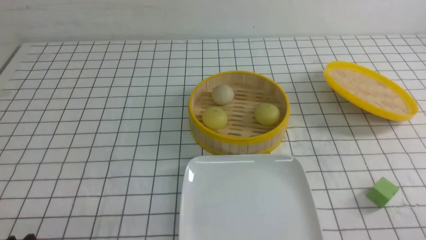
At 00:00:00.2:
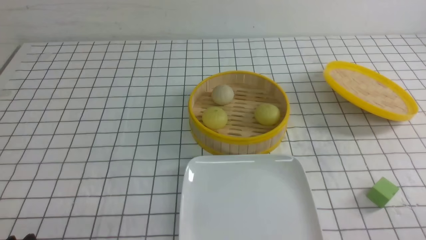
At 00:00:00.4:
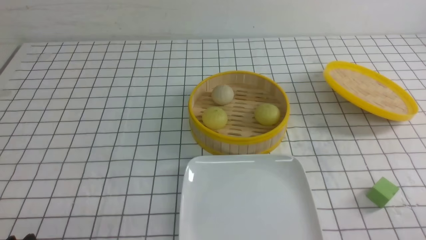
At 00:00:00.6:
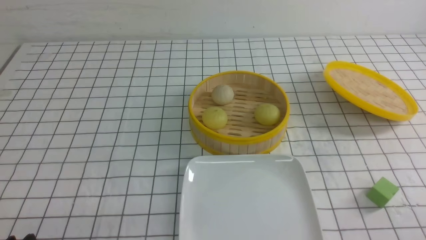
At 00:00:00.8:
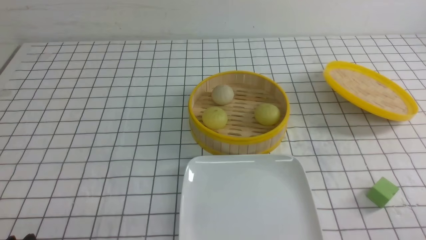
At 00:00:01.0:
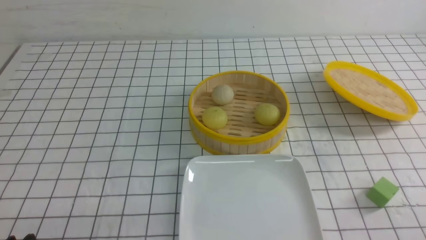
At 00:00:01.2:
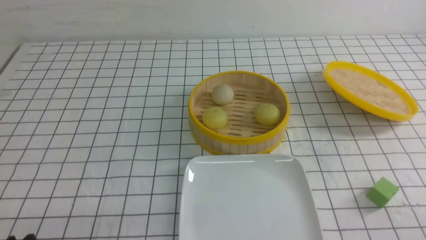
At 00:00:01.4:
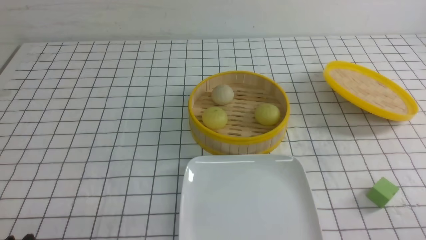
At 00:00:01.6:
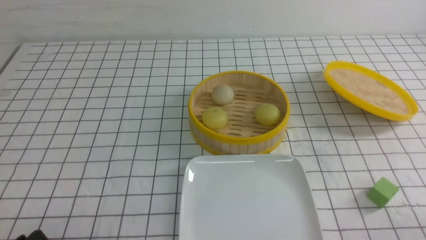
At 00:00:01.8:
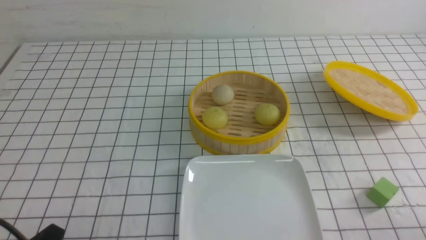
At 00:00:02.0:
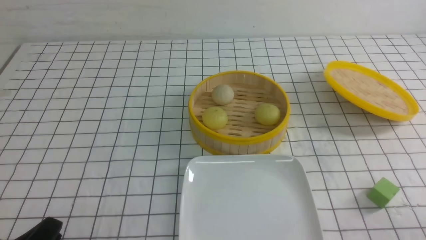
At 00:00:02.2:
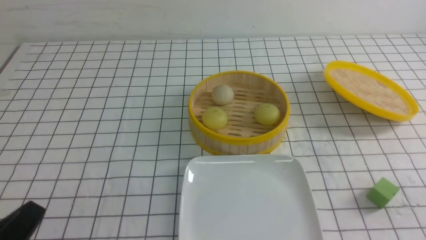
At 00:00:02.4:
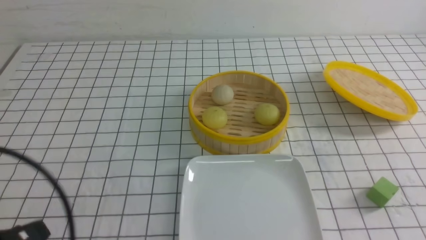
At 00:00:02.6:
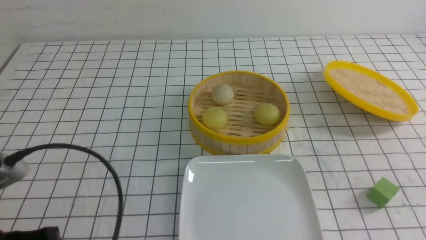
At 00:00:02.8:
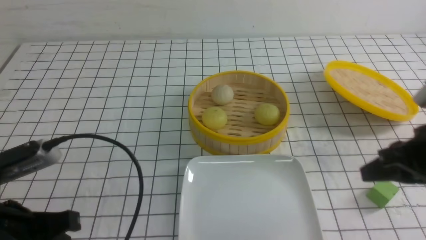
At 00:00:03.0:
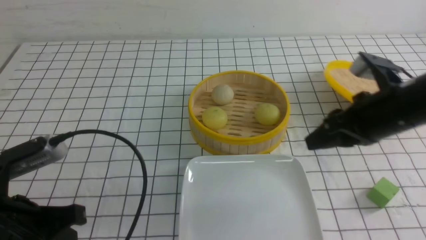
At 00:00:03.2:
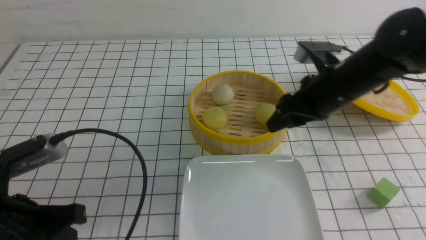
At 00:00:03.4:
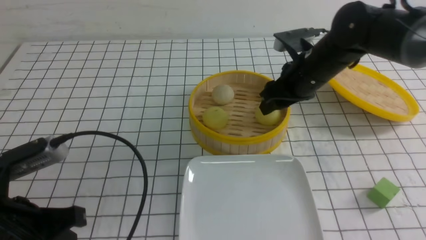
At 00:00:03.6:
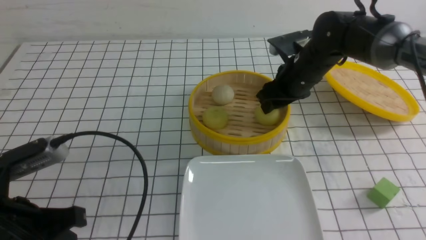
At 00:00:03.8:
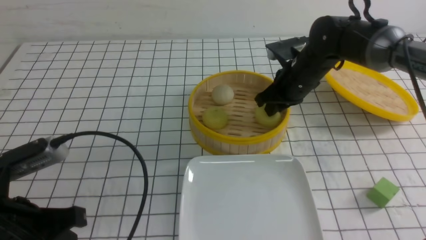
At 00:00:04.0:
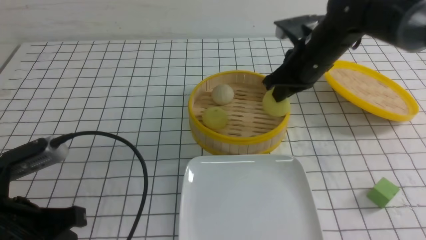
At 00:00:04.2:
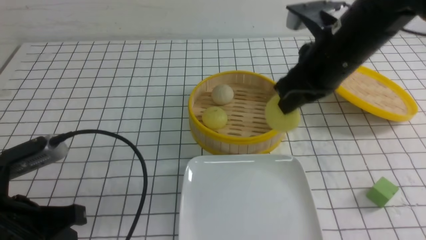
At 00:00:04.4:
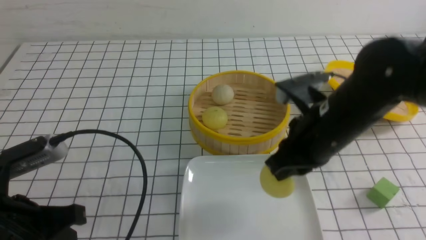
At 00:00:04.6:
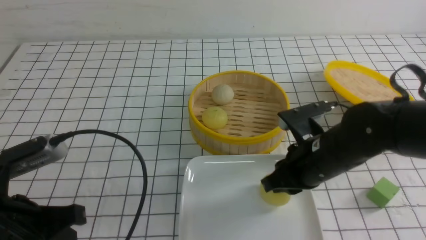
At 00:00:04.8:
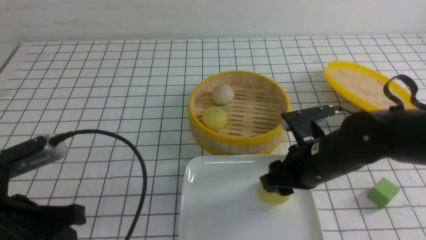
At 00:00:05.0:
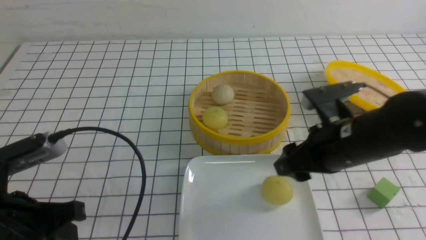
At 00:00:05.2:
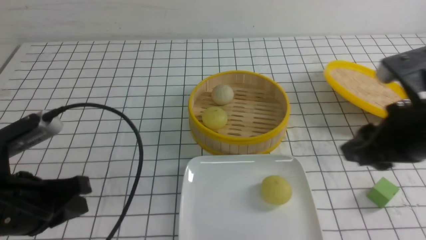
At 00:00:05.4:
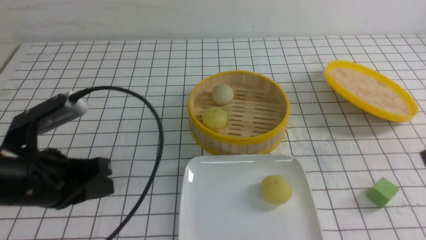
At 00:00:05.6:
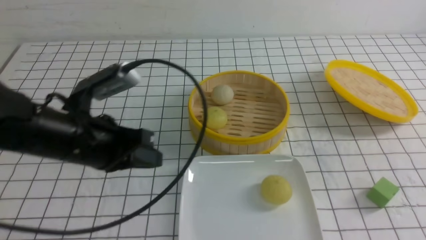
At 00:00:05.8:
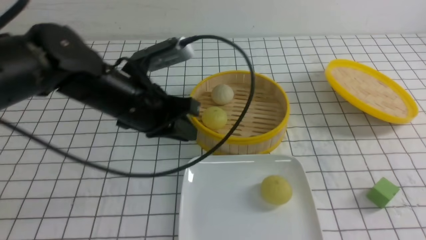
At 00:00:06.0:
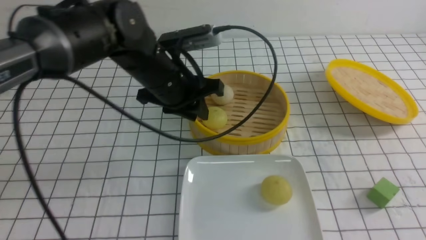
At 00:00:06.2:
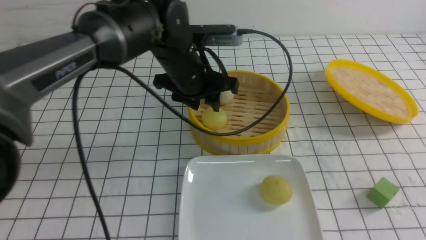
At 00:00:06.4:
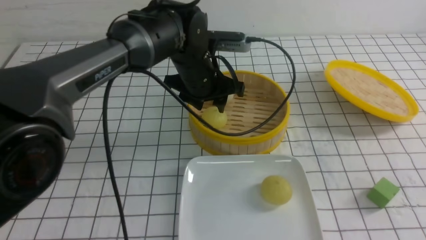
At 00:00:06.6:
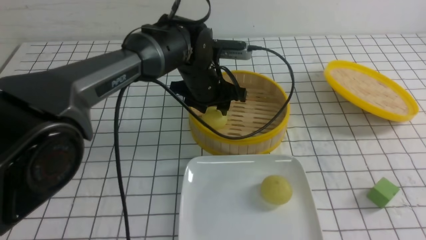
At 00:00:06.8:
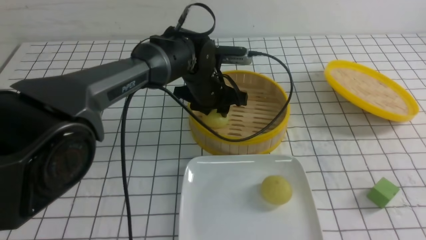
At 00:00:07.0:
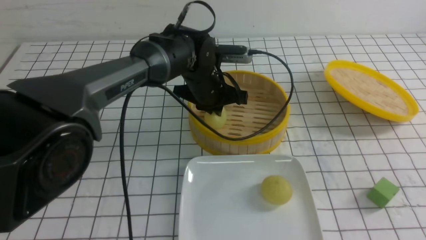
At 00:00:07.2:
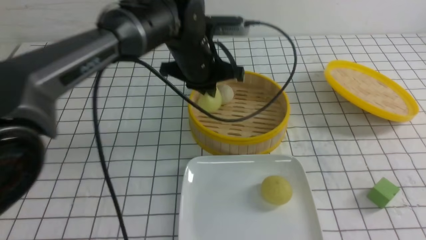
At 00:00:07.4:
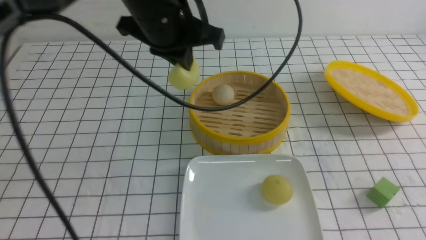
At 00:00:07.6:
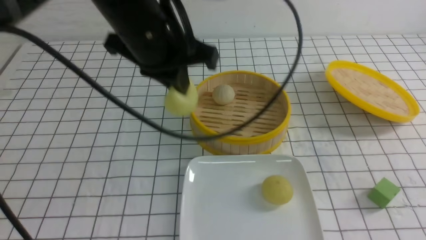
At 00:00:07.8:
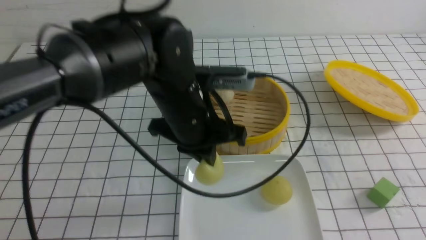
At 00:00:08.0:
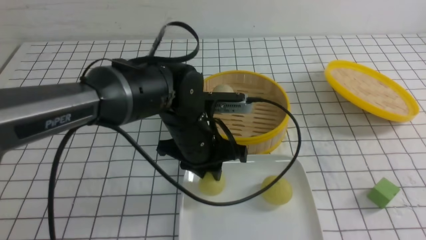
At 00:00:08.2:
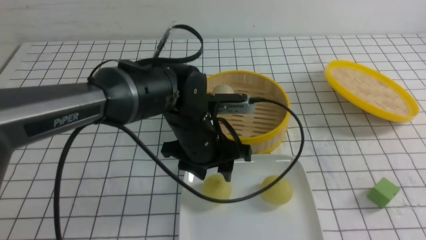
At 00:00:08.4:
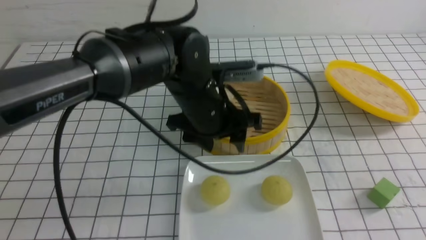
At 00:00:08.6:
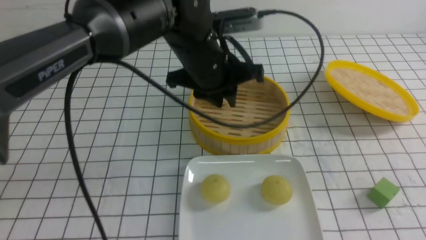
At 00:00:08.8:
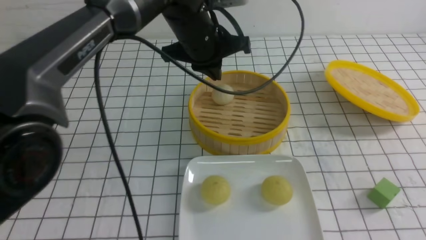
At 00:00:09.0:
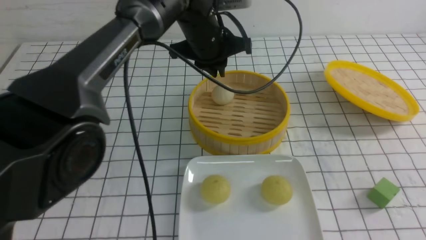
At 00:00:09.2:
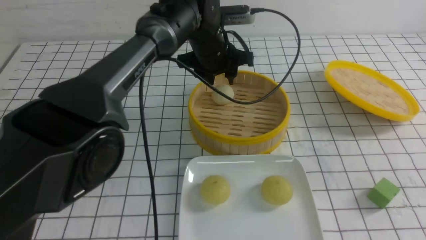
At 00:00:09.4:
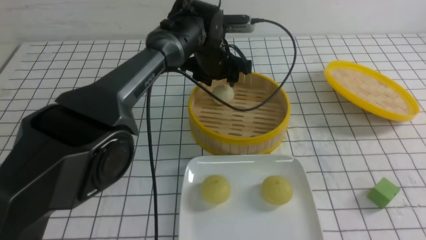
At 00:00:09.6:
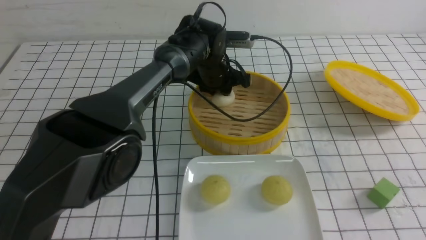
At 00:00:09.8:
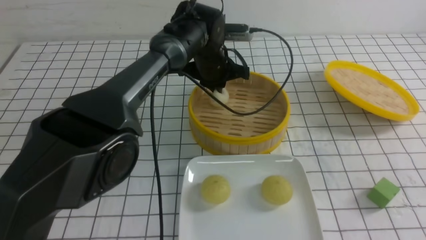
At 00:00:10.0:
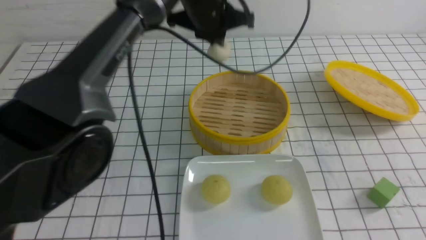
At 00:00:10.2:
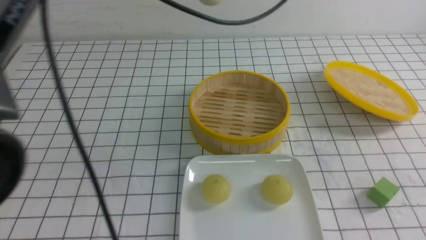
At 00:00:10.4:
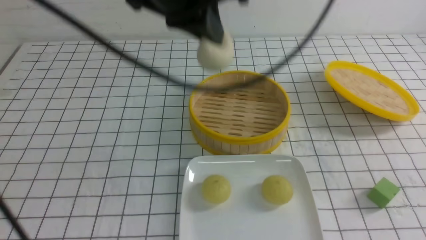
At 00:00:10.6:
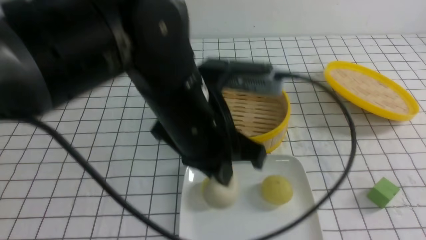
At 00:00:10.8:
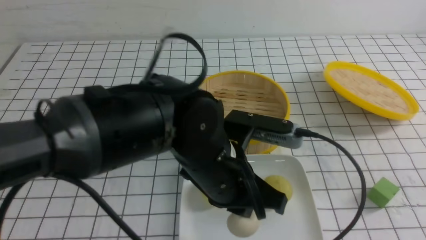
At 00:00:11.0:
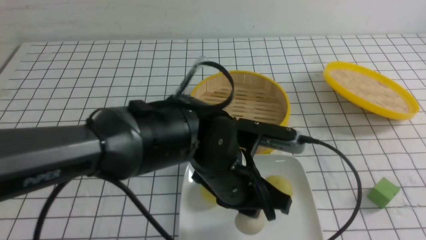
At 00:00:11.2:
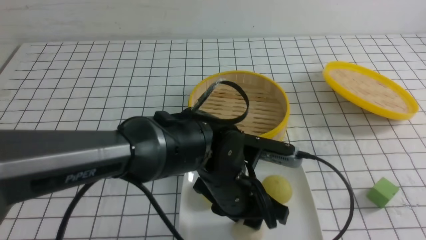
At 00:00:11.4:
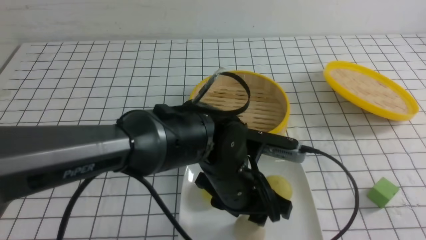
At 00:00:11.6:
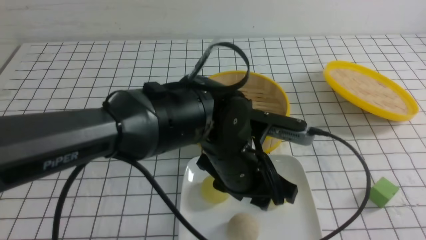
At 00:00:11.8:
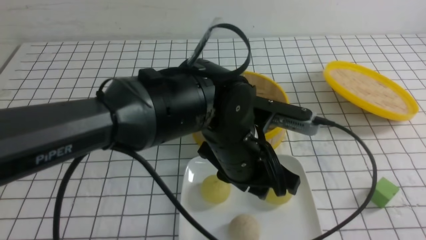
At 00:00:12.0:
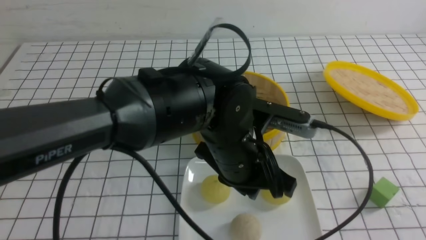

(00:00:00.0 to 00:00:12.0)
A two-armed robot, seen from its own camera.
Step, 00:00:00.0 - 00:00:03.6: use the right arm to grab the steamed stuffed bun that is closest to it.
Step, 00:00:04.0 - 00:00:04.8: use the right arm to put the steamed stuffed bun into the plate.
Step, 00:00:05.0 - 00:00:06.8: use the left arm to grab the steamed stuffed bun that is closest to it.
Step, 00:00:07.0 - 00:00:08.0: use the left arm to put the steamed stuffed bun into the plate.
Step, 00:00:08.4 - 00:00:09.6: use the left arm to grab the steamed stuffed bun that is closest to it.
Step, 00:00:09.8 - 00:00:11.2: use the left arm to put the steamed stuffed bun into the plate.
00:00:01.6 - 00:00:03.0: The left gripper moves forward and upward, about 10 cm, and closes its fingers. Meanwhile the right gripper shifts some 30 cm forward, upward and to the left, and closes and opens again.
00:00:03.0 - 00:00:04.4: The right gripper heads to the left, covering roughly 10 cm, moves roughly 15 cm forward and comes back, and closes its fingers.
00:00:04.4 - 00:00:06.0: The right gripper travels backward and to the right by about 25 cm, and opens, then closes again. Meanwhile the left gripper heads forward and to the right, covering roughly 25 cm, and opens up.
00:00:06.0 - 00:00:07.6: The left gripper goes roughly 5 cm upward, and closes its fingers.
00:00:07.6 - 00:00:09.0: The left gripper moves forward, about 15 cm, and opens its fingers.
00:00:09.0 - 00:00:10.4: The left gripper moves backward and upward, approximately 20 cm, and closes its fingers.
00:00:10.4 - 00:00:12.0: The right gripper heads backward, covering some 10 cm; the left gripper travels downward by approximately 15 cm, and opens and closes again.

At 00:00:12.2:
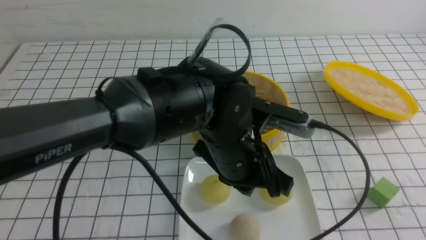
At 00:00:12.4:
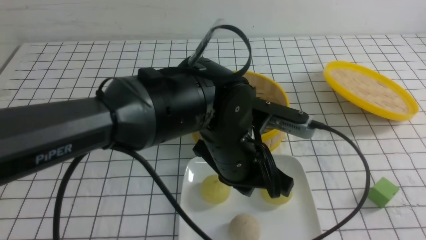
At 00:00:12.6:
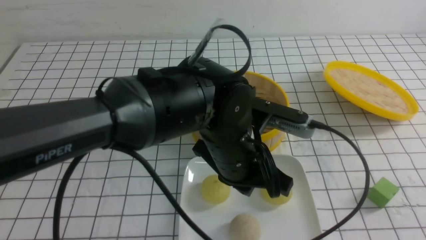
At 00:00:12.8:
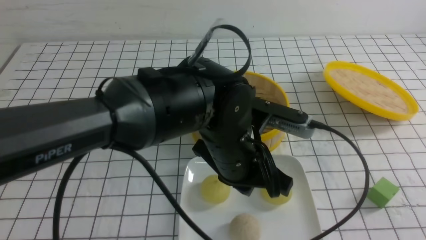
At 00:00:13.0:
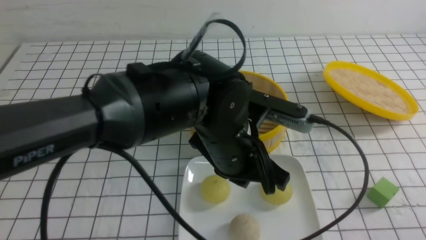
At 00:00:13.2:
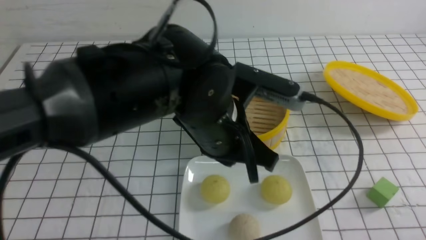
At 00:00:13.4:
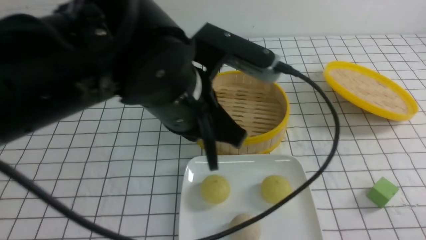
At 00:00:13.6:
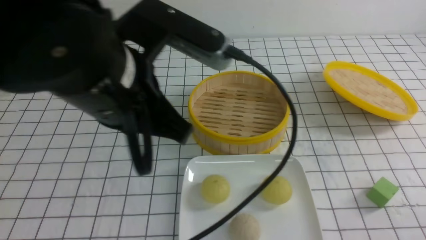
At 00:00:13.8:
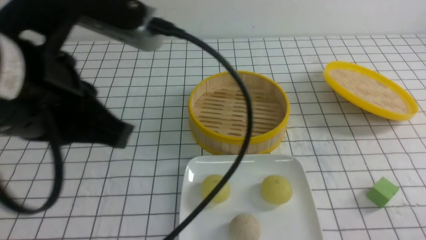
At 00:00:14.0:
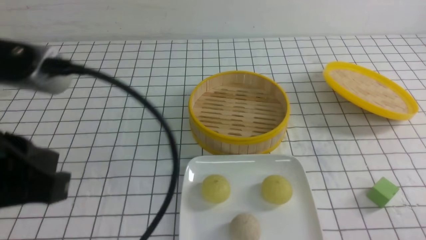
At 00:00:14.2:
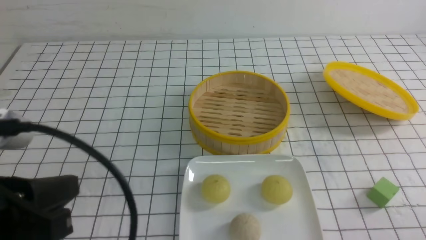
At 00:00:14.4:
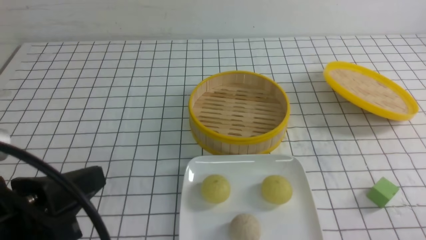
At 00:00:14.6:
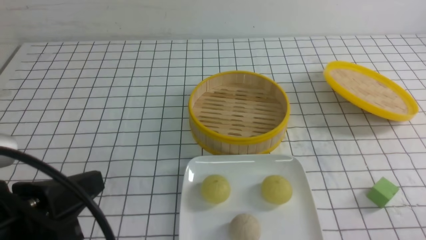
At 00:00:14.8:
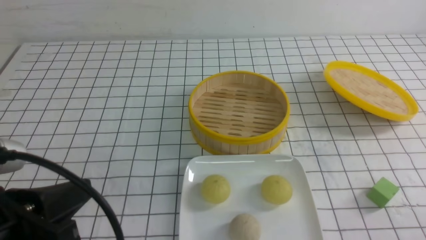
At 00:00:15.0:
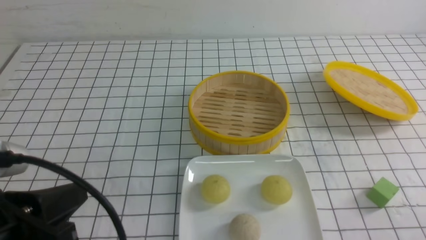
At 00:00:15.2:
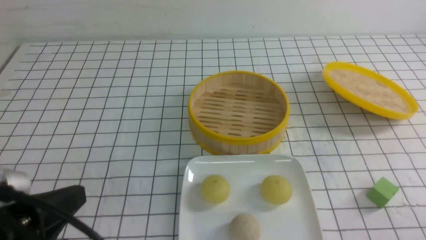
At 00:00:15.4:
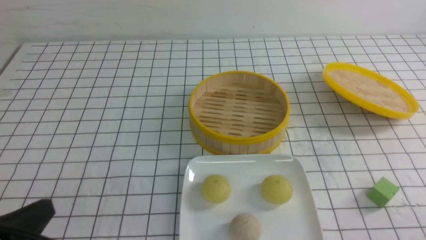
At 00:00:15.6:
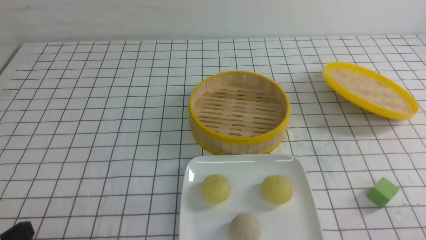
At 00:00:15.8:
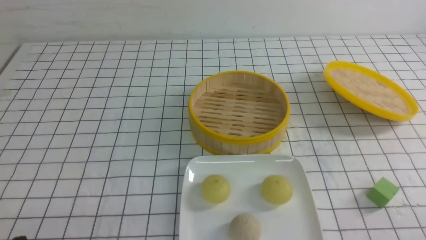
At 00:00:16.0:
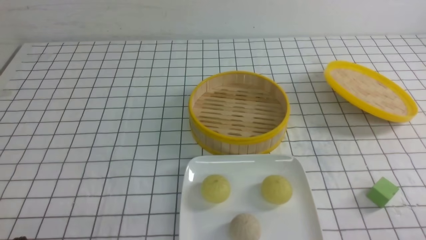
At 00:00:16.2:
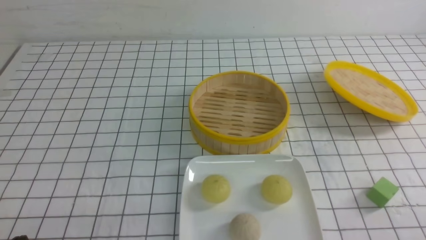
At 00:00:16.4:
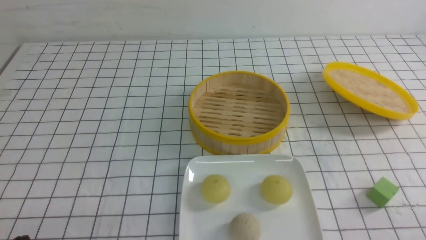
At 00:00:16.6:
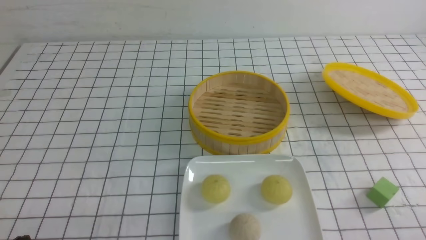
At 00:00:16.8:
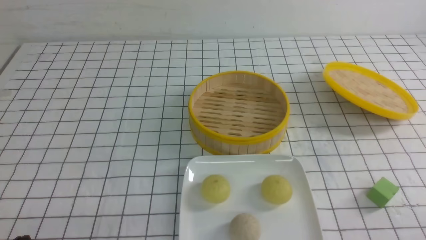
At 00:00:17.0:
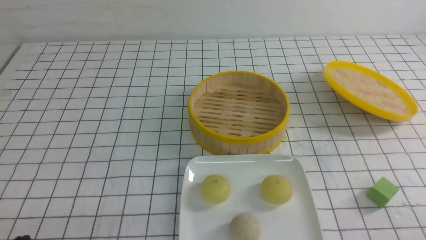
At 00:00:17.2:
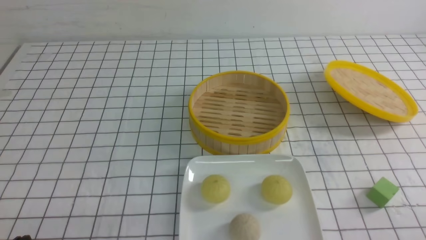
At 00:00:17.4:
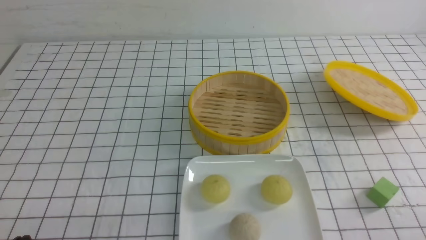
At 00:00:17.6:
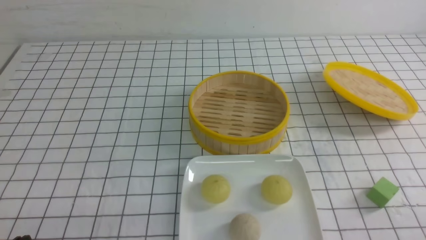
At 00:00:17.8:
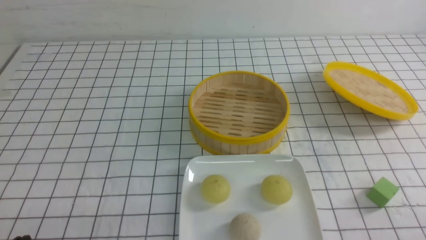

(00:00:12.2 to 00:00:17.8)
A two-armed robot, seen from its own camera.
00:00:12.2 - 00:00:13.6: The right gripper is displaced downward by some 10 cm, while the left gripper goes some 20 cm upward and to the left.
00:00:13.6 - 00:00:15.0: The left gripper travels to the left, backward and downward by approximately 20 cm.
00:00:15.0 - 00:00:16.4: The left gripper is displaced downward and to the left by approximately 15 cm.
00:00:16.4 - 00:00:17.8: The two grippers keep their place.
